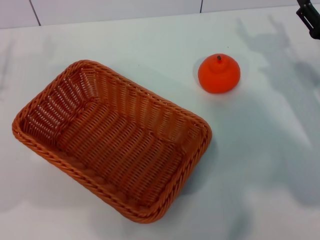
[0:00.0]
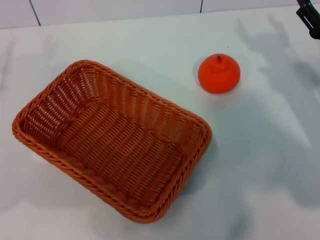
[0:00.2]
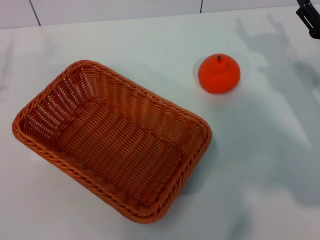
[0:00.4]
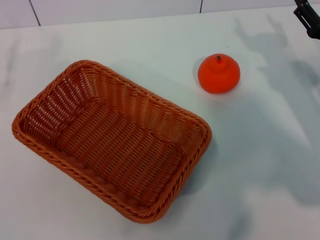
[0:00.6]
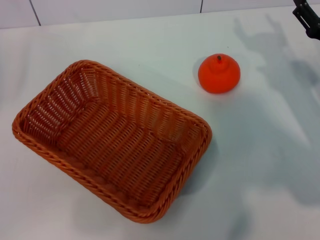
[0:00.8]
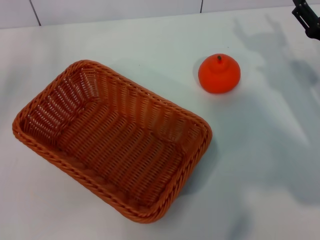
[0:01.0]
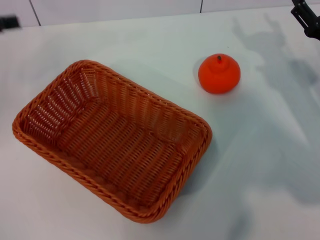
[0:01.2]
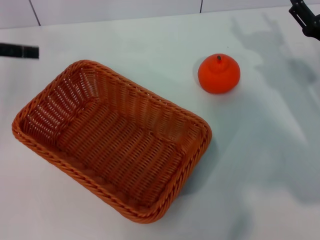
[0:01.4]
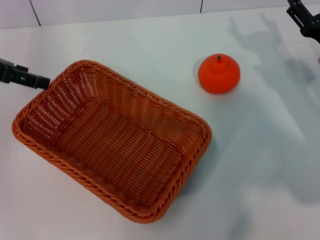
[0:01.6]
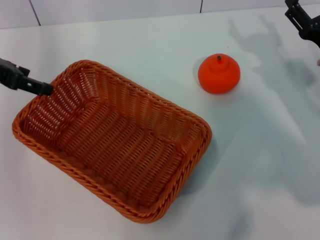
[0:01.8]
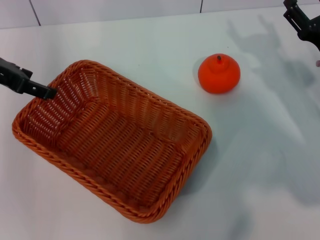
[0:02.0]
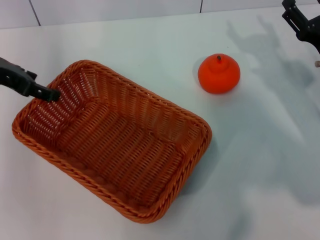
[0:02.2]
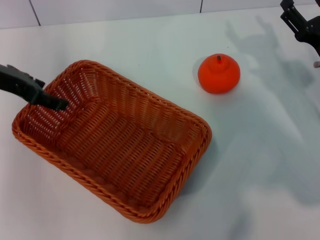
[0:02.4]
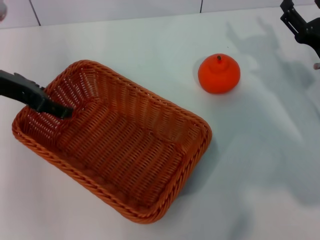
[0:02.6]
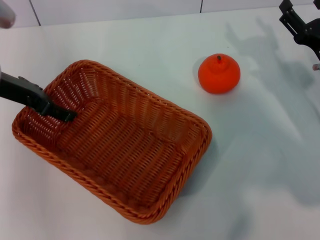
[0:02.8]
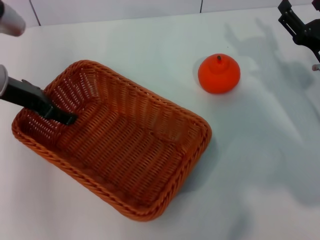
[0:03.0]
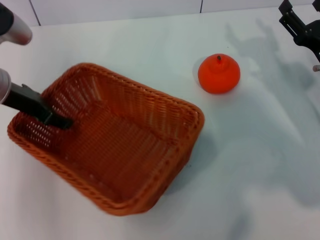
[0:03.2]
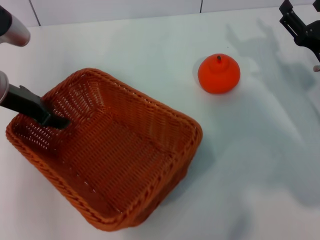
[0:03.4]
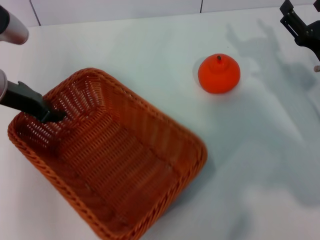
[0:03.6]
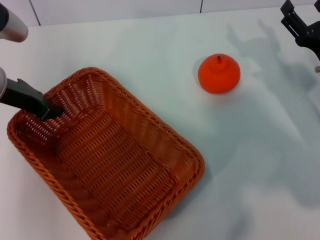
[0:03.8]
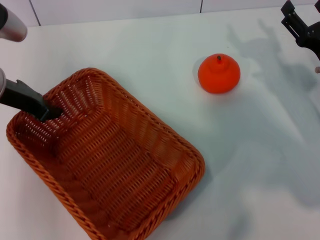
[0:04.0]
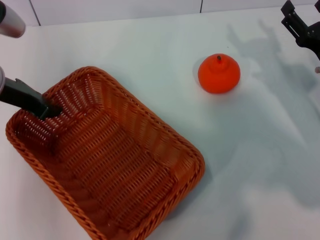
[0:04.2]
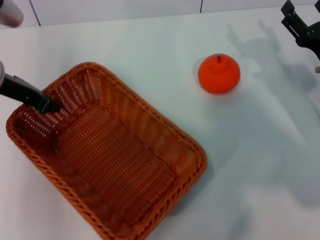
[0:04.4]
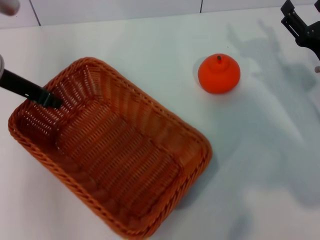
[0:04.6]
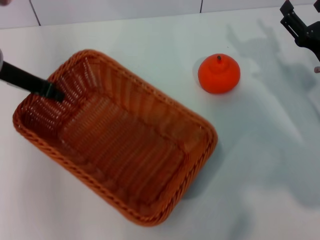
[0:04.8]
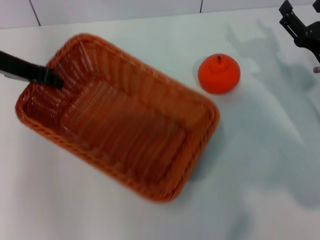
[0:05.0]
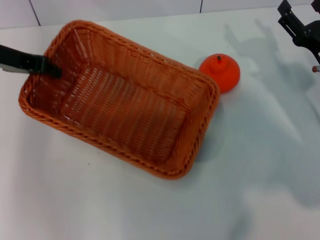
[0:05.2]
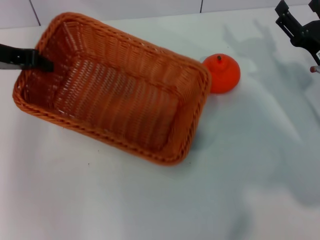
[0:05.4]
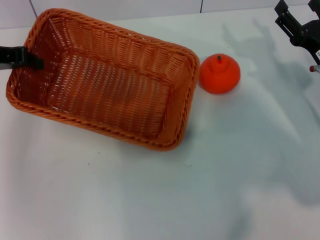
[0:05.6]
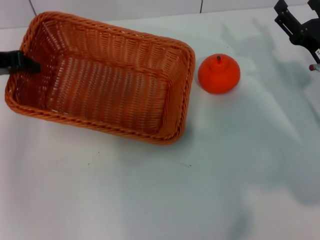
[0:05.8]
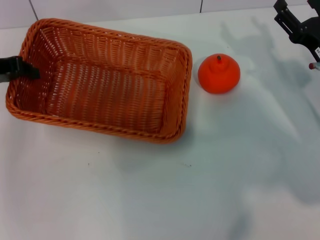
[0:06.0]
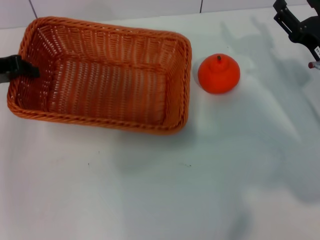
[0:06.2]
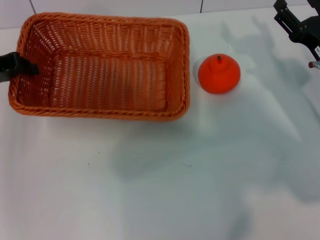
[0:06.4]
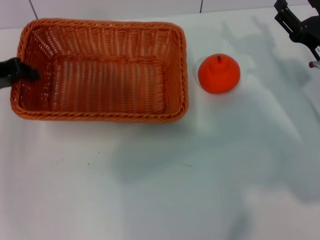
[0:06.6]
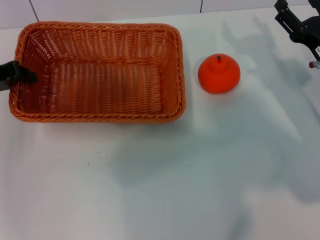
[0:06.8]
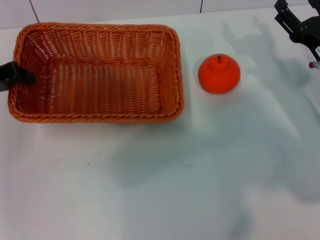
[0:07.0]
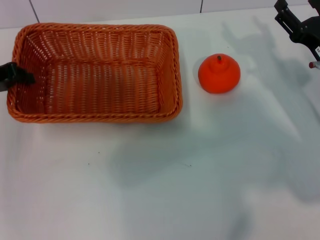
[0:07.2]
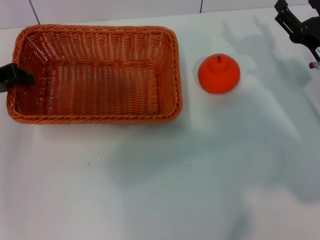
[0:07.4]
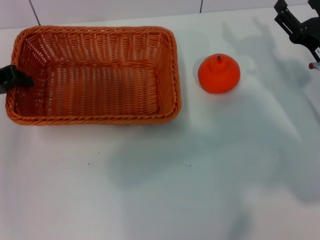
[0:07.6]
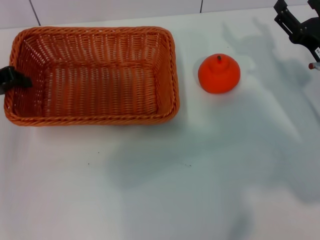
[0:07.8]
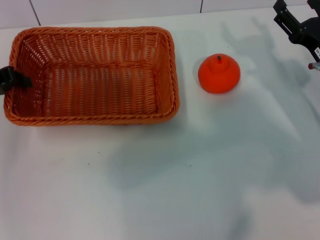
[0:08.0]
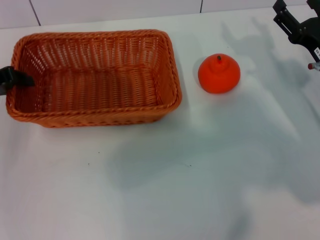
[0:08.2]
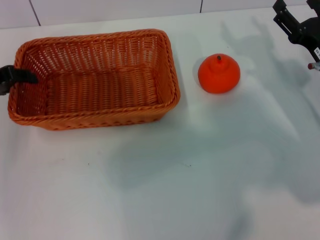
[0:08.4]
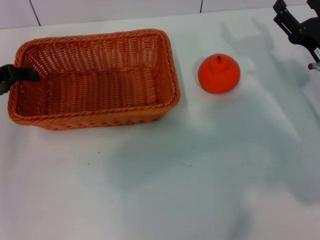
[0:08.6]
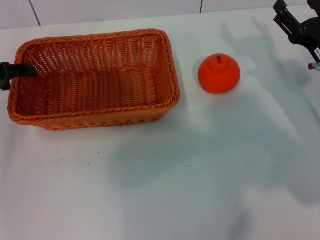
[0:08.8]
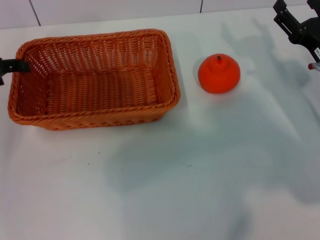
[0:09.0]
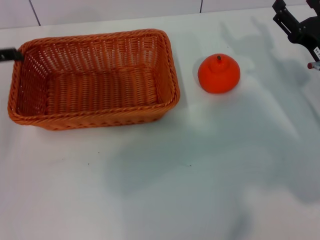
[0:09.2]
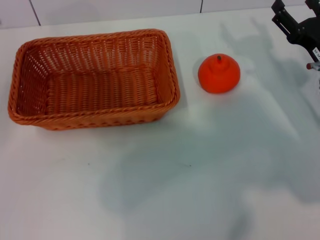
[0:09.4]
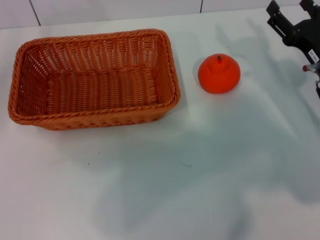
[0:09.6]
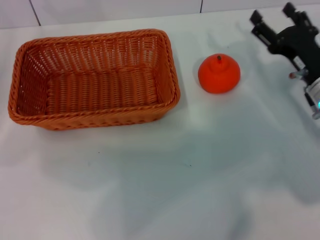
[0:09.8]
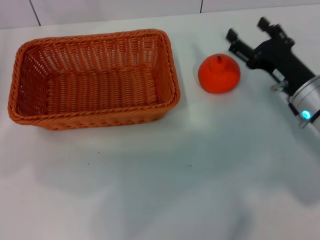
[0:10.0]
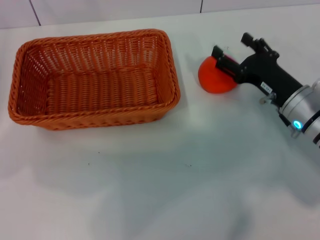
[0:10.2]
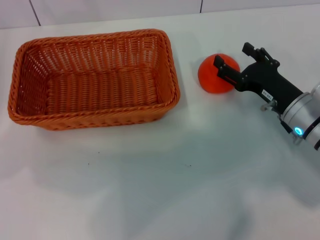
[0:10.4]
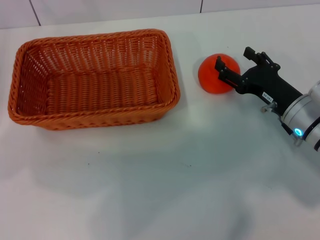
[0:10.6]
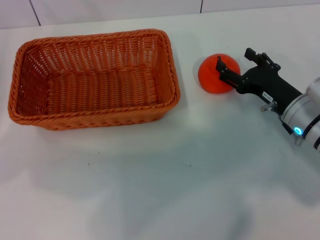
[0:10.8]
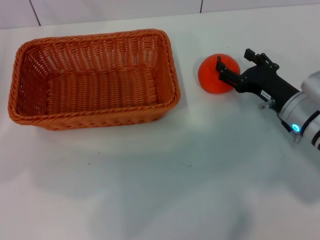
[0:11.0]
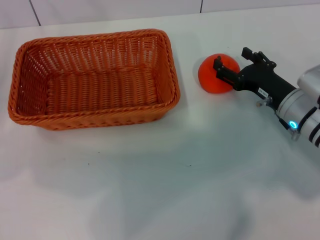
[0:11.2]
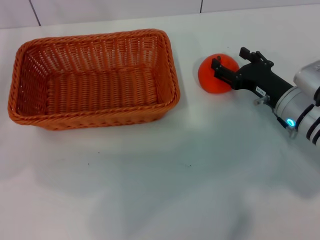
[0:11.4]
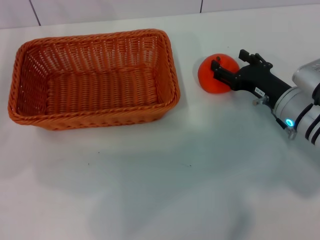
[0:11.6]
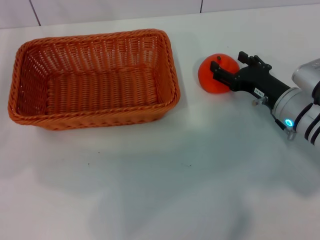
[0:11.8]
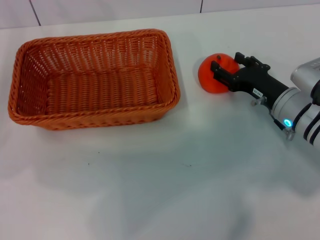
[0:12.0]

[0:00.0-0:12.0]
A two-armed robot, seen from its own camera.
Task of the whole recording: the left gripper pick up the yellow basket and place it horizontally in the middle of the table, the right gripper pick up the orange and place it into the yellow basket.
Step, 0:00.0 to 0:03.8: Pick up the light basket with the left gripper.
Step, 0:04.0 to 0:09.2: Place the light basket in the center of view with the left gripper.
0:00.0 to 0:01.6: The left gripper goes about 15 cm upward and forward.
0:01.6 to 0:03.0: The left gripper heads to the right and downward, covering roughly 10 cm.
0:03.0 to 0:04.4: The left gripper closes up.
0:04.4 to 0:06.0: The left gripper heads to the left, covering roughly 5 cm.
0:06.0 to 0:07.6: The grippers make only small movements.
0:07.6 to 0:09.0: The left gripper opens its fingers.
0:09.0 to 0:10.4: The left gripper moves to the left and backward, roughly 10 cm. Meanwhile the right gripper ends up approximately 5 cm from where it was.
0:10.4 to 0:12.0: The grippers make only small movements.

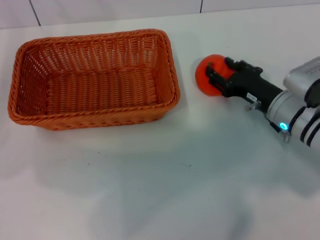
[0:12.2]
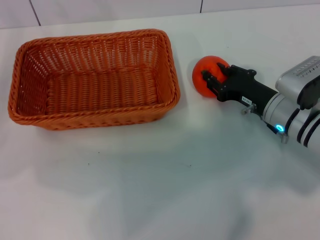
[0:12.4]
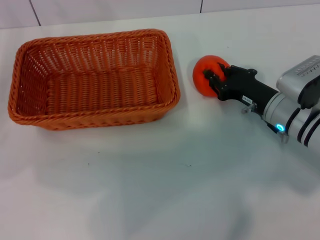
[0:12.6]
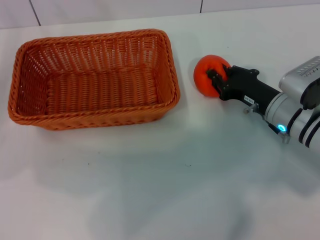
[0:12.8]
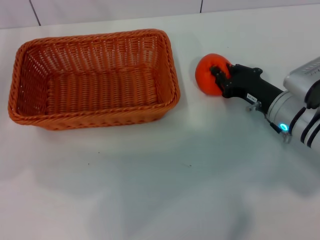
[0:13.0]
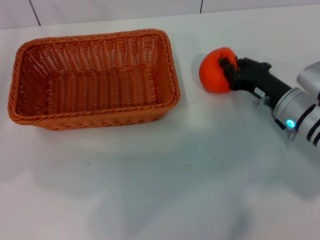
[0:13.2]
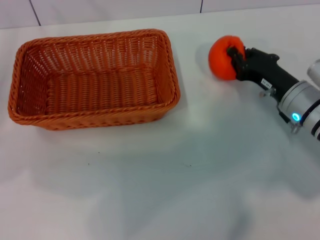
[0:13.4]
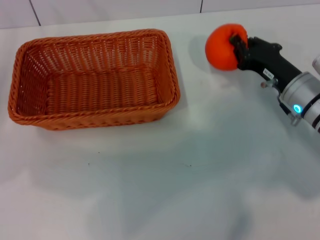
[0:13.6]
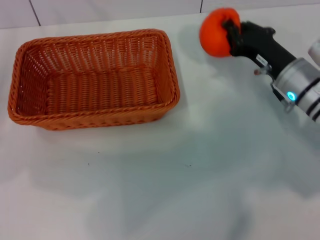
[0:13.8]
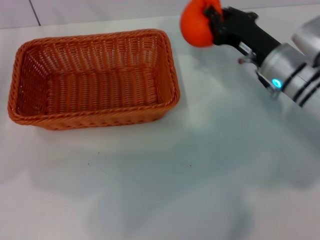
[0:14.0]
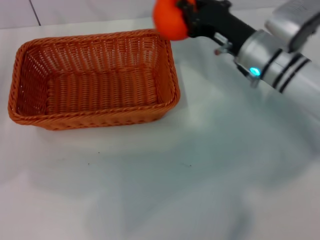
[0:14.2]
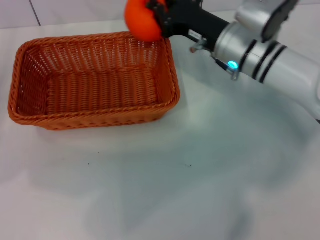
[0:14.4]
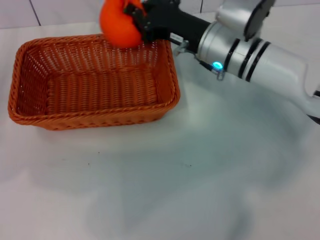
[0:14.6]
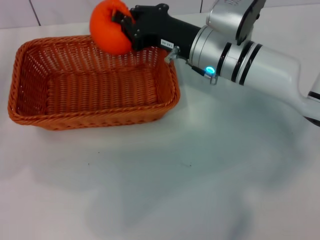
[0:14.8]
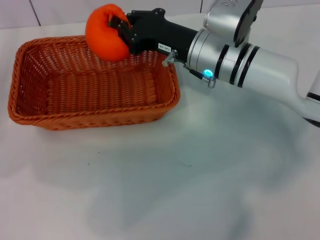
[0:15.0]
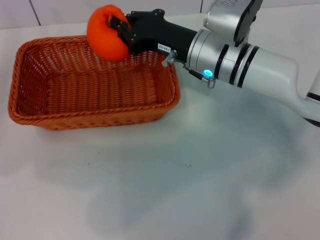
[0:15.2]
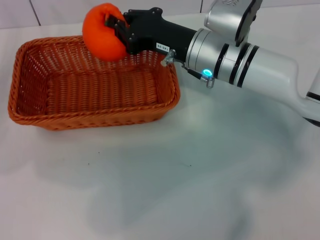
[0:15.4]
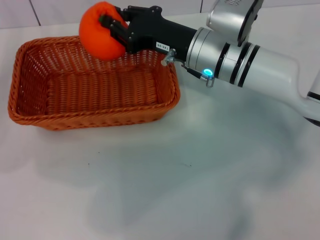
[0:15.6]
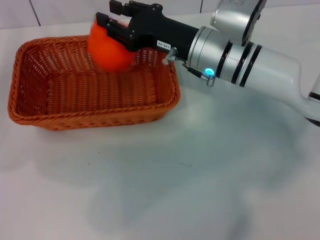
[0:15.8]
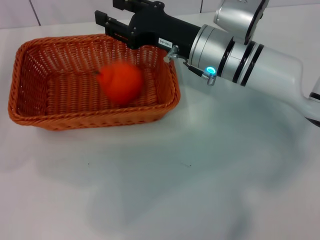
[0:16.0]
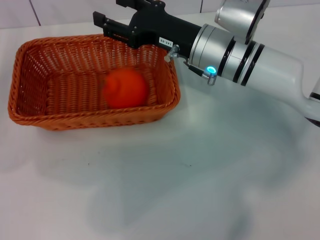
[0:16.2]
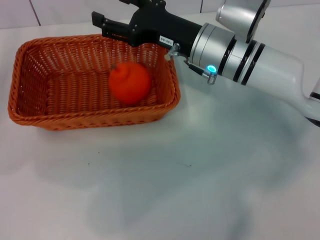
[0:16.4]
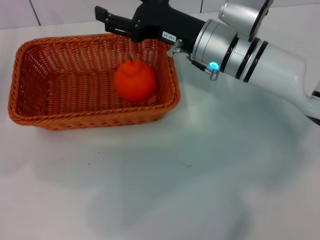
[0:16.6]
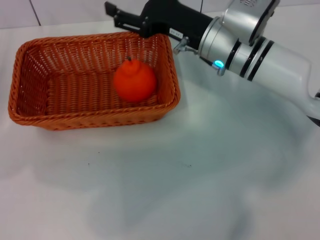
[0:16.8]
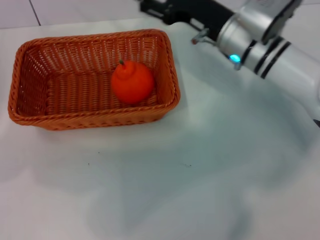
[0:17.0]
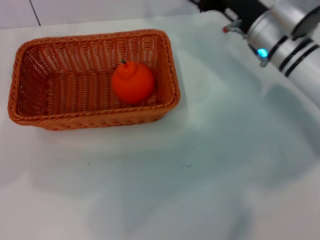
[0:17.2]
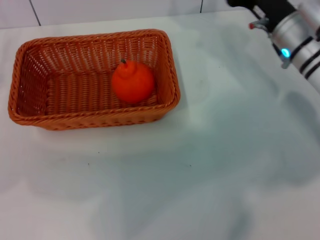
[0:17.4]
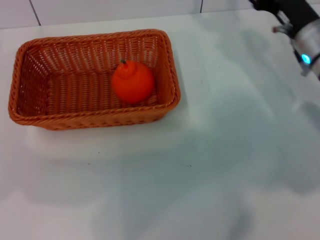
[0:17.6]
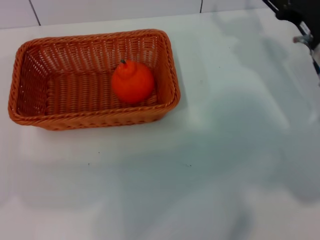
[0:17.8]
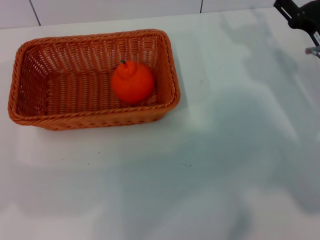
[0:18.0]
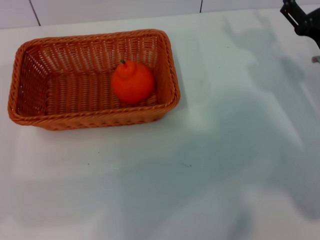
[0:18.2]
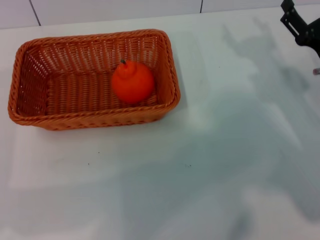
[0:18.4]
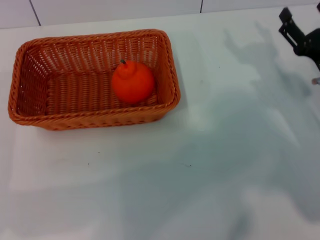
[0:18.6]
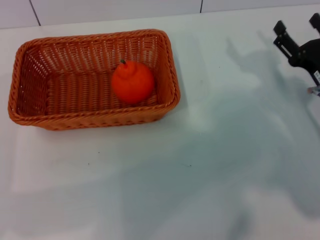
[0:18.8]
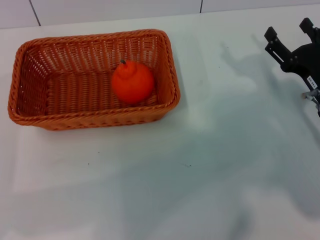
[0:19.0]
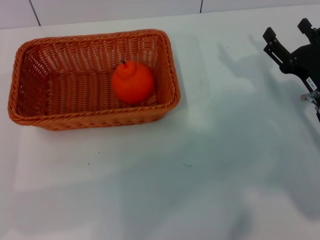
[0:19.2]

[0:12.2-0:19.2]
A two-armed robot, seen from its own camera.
Task of the whole recording: the left gripper pick up the yellow basket and place it horizontally in the middle of the table, the right gripper pick up the orange and place it into the yellow basket.
Step, 0:13.8 to 0:16.4: Place the orange into the light basket with the right gripper.
0:12.2 to 0:13.6: The right gripper closes up.
0:13.6 to 0:15.0: The right gripper goes approximately 15 cm to the left and upward.
0:15.0 to 0:16.4: The right gripper opens its fingers.
0:16.4 to 0:17.8: The left gripper shifts by approximately 5 cm. Meanwhile the right gripper heads to the right, covering roughly 15 cm.
0:17.8 to 0:19.2: The right gripper goes roughly 5 cm backward.
